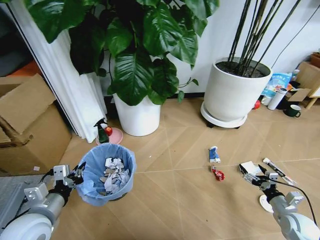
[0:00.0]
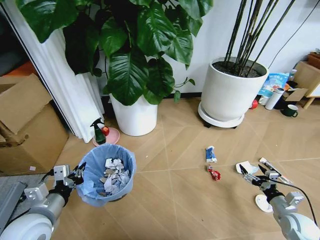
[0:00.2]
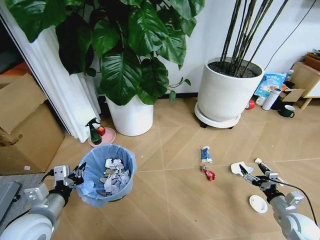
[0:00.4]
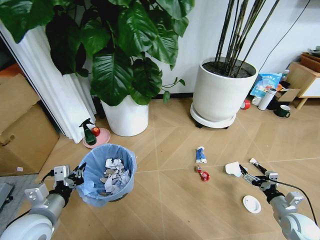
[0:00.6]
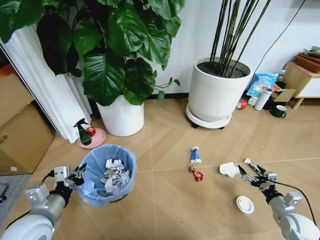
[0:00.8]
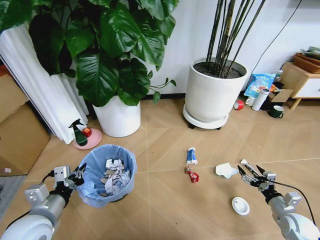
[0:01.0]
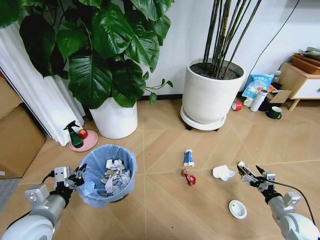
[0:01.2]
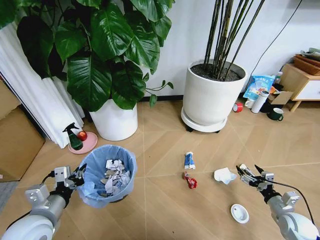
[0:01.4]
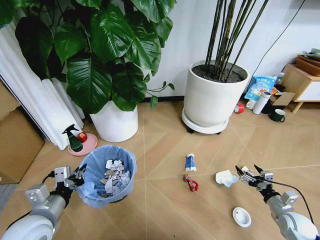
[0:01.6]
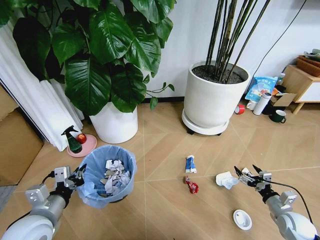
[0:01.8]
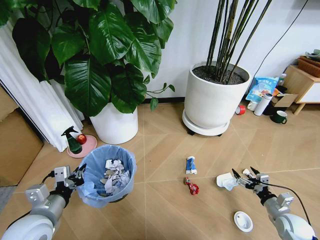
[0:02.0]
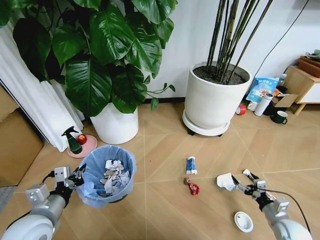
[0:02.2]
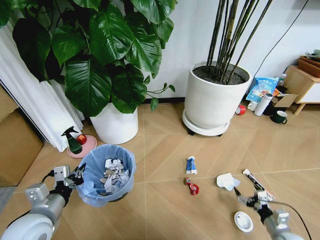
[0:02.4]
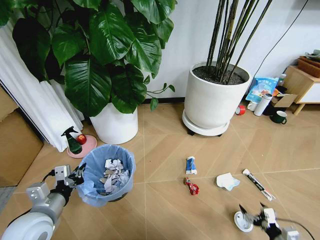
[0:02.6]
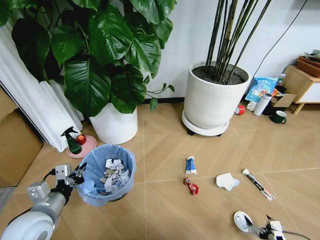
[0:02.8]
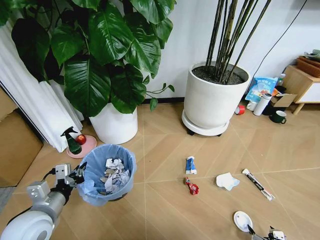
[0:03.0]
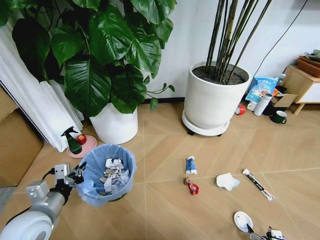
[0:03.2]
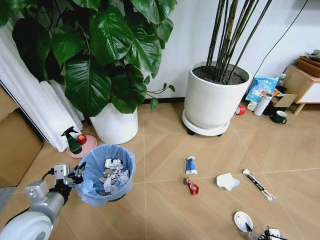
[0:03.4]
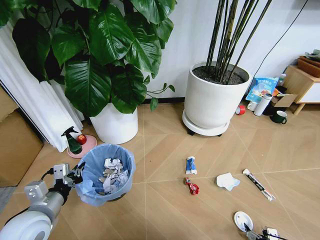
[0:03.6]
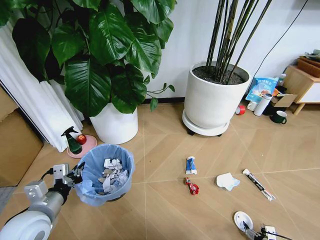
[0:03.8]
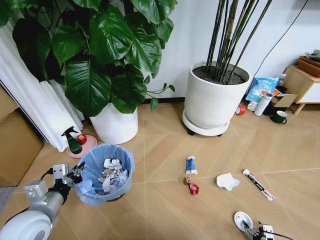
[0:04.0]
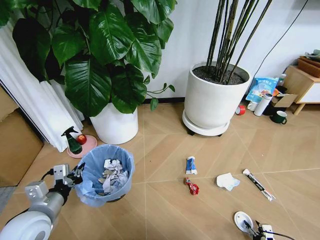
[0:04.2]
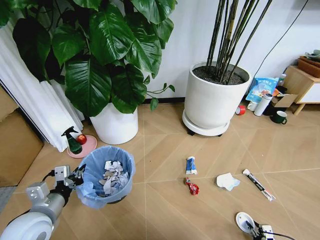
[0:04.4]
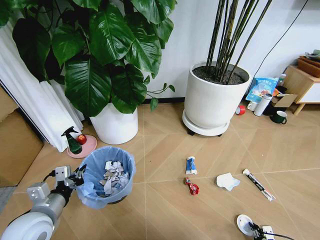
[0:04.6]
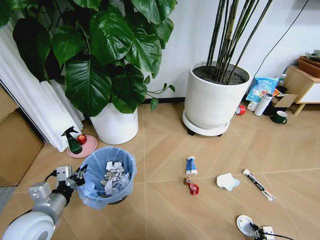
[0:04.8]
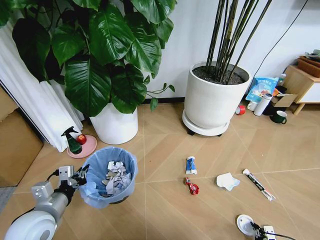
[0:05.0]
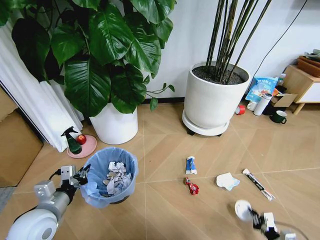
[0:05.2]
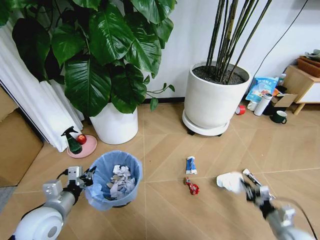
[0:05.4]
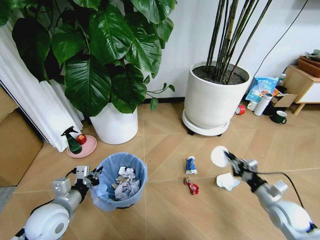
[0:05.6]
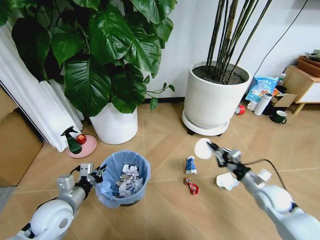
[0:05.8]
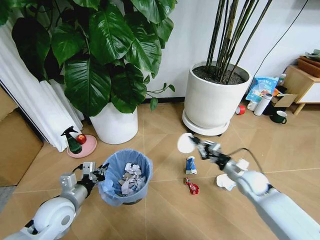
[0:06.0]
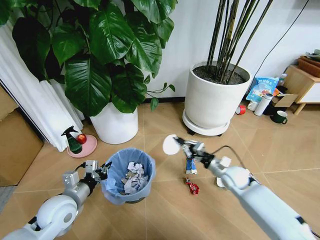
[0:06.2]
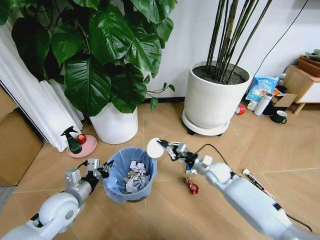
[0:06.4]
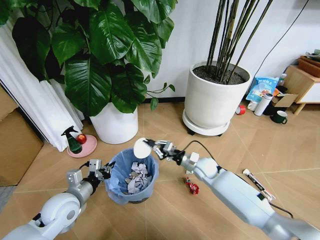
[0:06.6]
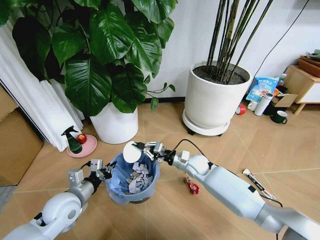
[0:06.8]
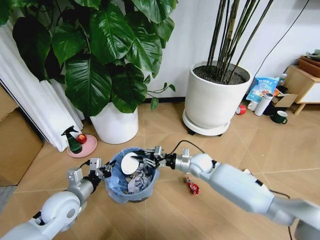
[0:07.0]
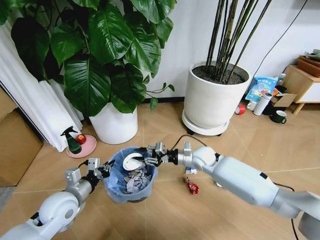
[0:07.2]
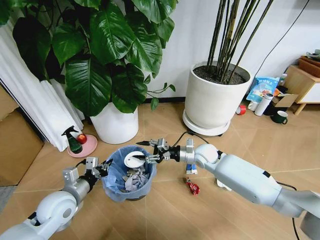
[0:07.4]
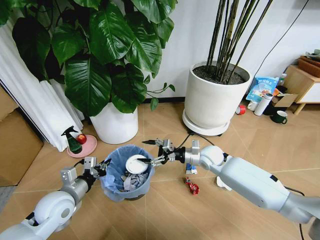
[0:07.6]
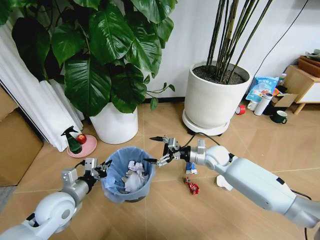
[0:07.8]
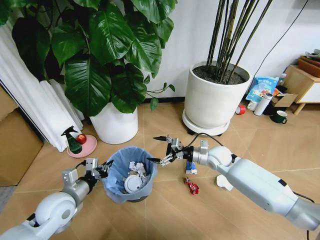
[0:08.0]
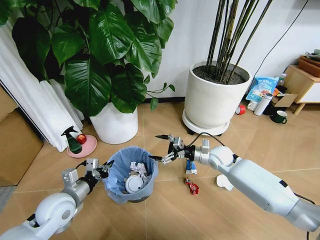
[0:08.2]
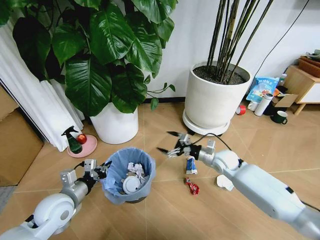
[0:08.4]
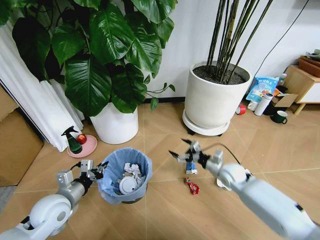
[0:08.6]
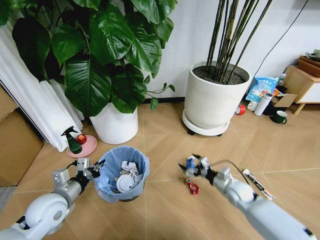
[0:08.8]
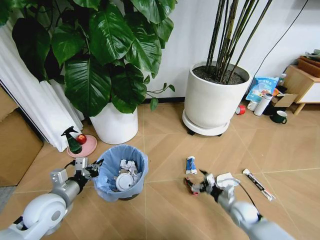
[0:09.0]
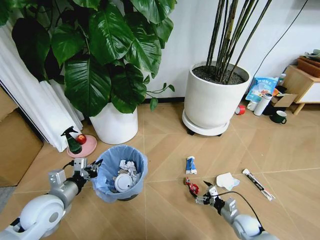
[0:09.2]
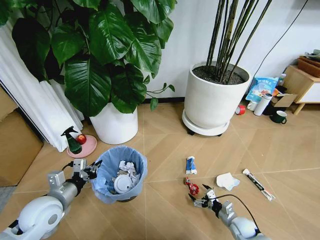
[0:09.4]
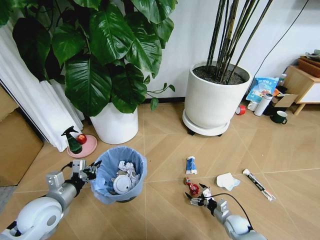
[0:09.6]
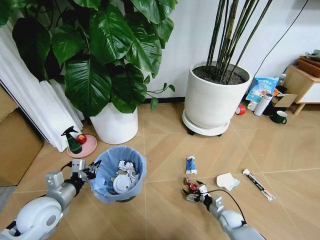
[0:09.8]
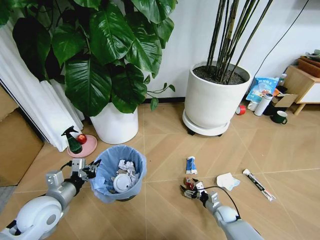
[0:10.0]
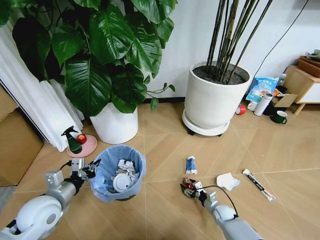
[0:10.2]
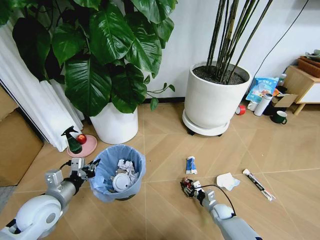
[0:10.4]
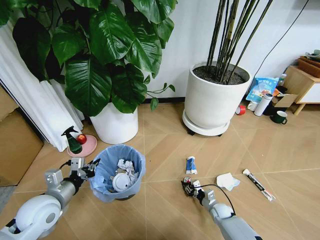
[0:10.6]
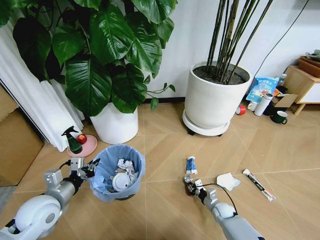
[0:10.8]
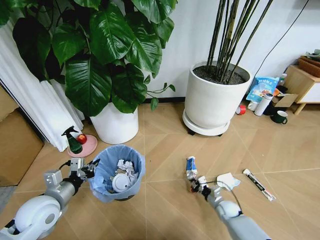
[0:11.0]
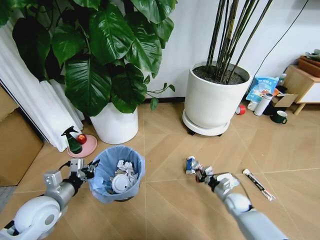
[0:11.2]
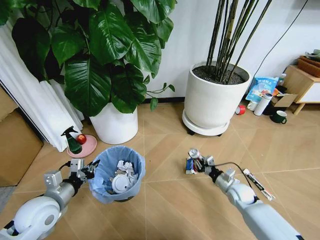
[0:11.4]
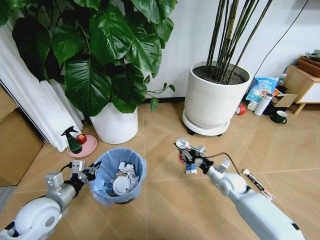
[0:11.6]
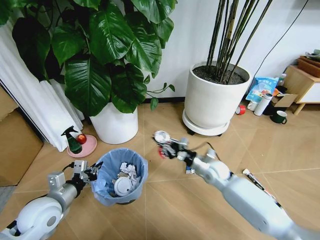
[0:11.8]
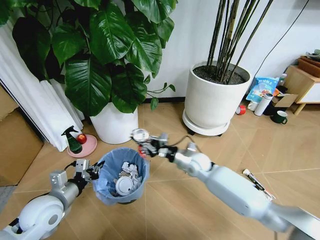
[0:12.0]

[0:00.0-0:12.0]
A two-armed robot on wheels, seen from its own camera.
Task of the whole recording: Pick up the trash bin and place the garbage on the floor into it.
0:01.6 to 0:03.0: The right gripper travels backward by some 20 cm.
0:03.0 to 0:04.4: The right gripper travels downward by some 5 cm, and closes.
0:04.4 to 0:06.0: The right gripper moves forward, upward and to the left, some 35 cm, while the left gripper shifts about 5 cm forward.
0:06.0 to 0:07.6: The right gripper heads to the left and forward, covering roughly 15 cm, and opens up.
0:07.6 to 0:09.0: The right gripper goes some 30 cm downward, backward and to the right.
0:09.0 to 0:10.4: The right gripper is displaced downward by about 10 cm, and closes its fingers.
0:10.4 to 0:12.0: The right gripper travels upward, to the left and forward by some 30 cm, and closes.

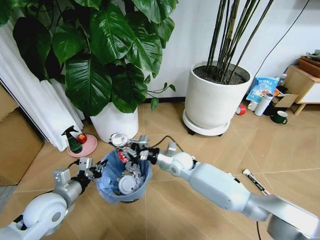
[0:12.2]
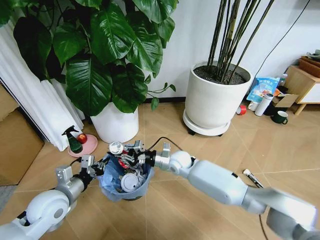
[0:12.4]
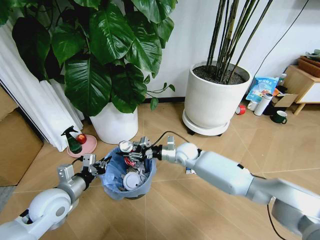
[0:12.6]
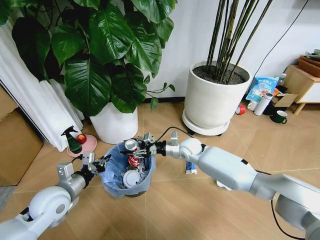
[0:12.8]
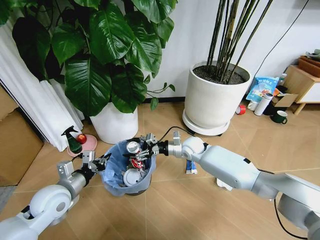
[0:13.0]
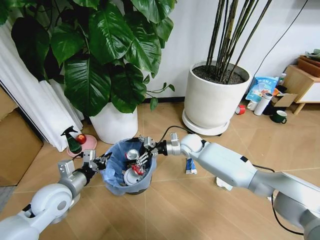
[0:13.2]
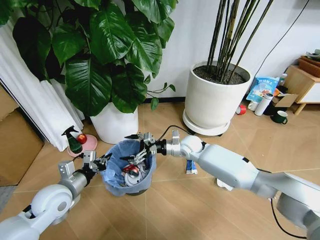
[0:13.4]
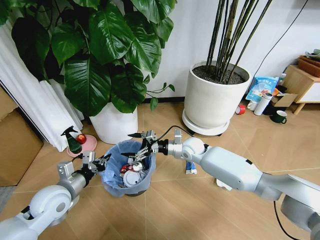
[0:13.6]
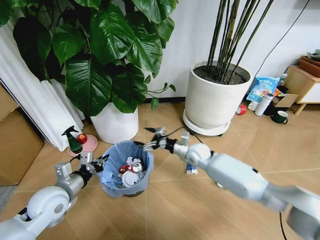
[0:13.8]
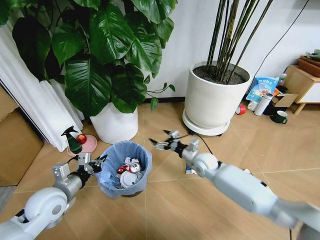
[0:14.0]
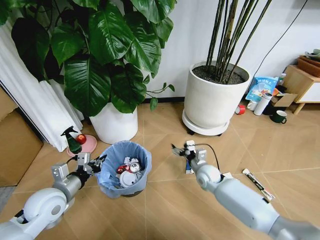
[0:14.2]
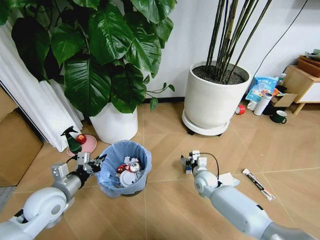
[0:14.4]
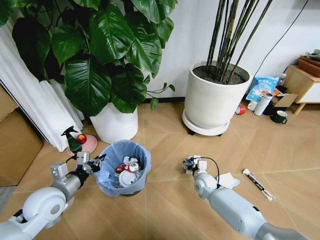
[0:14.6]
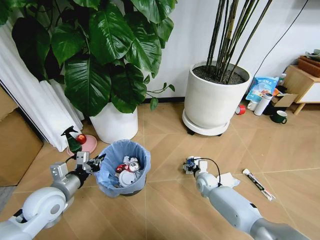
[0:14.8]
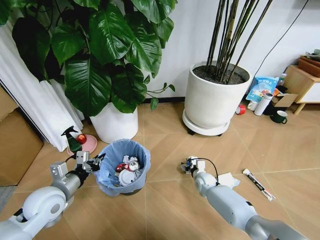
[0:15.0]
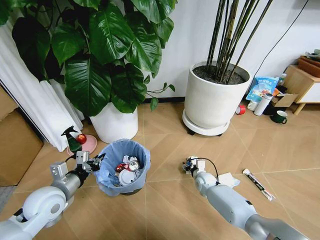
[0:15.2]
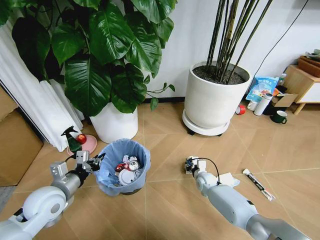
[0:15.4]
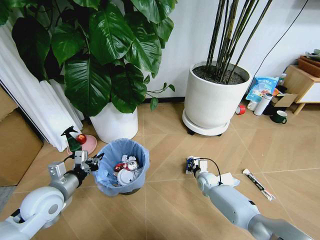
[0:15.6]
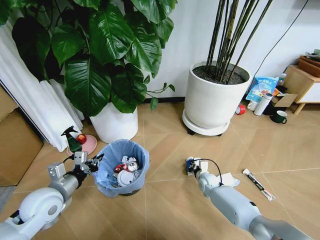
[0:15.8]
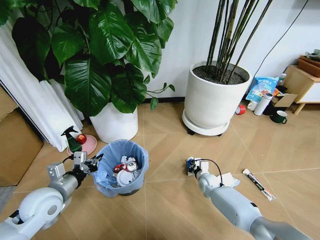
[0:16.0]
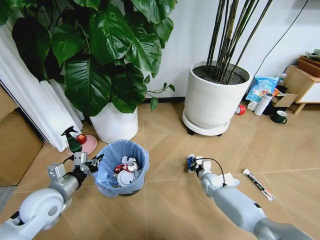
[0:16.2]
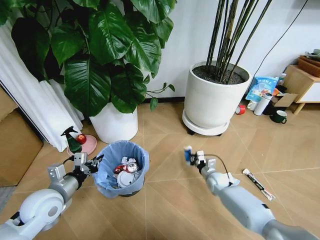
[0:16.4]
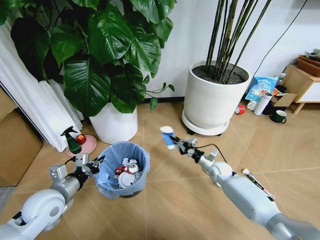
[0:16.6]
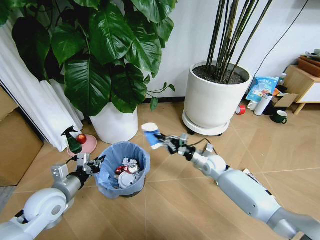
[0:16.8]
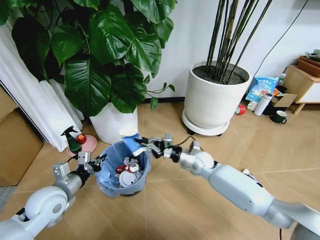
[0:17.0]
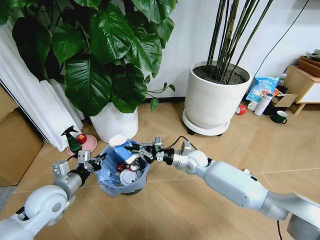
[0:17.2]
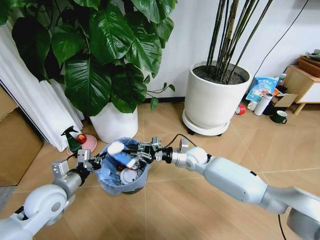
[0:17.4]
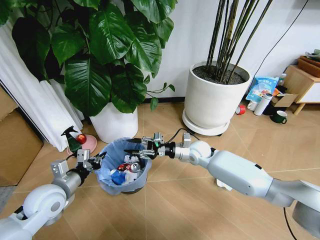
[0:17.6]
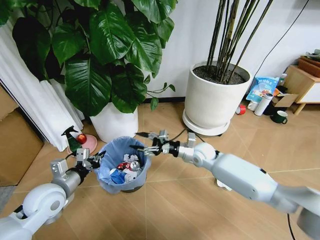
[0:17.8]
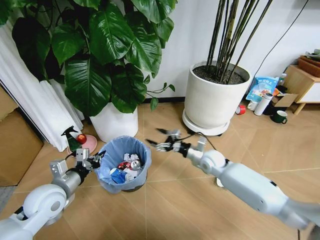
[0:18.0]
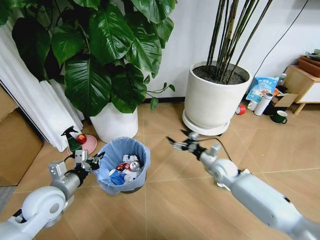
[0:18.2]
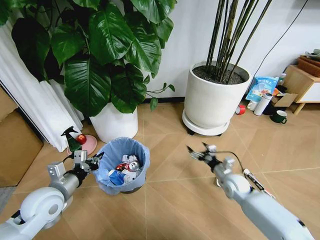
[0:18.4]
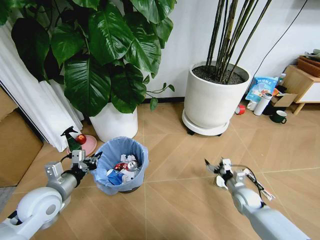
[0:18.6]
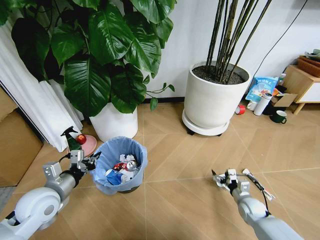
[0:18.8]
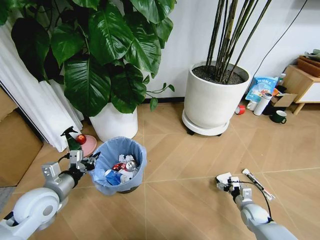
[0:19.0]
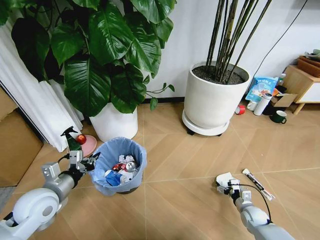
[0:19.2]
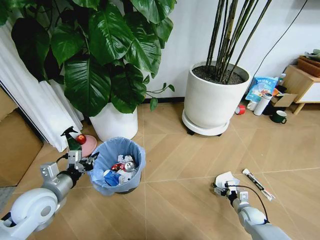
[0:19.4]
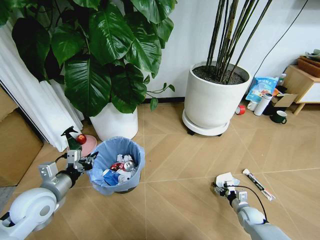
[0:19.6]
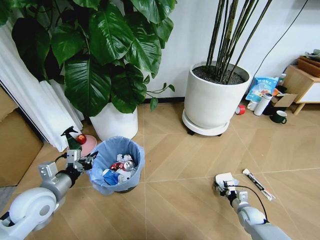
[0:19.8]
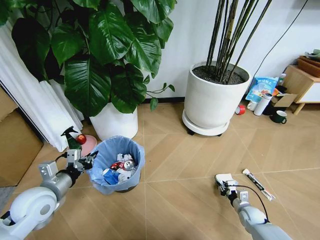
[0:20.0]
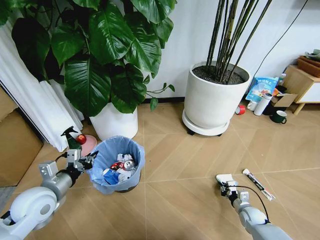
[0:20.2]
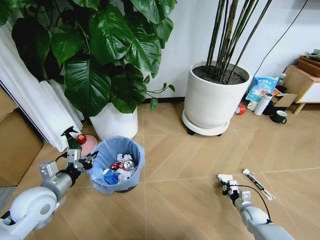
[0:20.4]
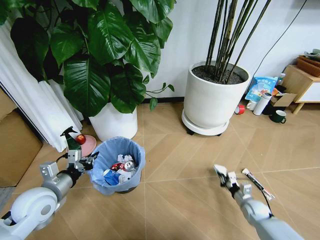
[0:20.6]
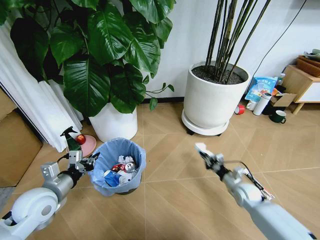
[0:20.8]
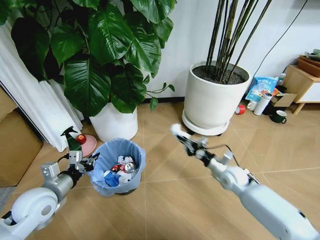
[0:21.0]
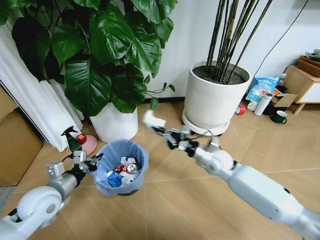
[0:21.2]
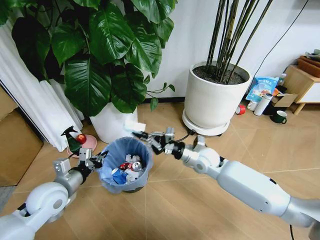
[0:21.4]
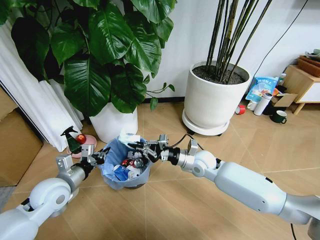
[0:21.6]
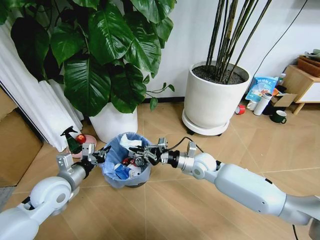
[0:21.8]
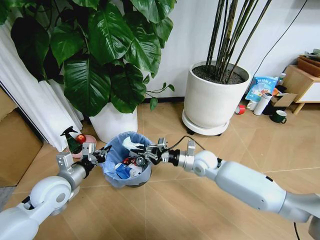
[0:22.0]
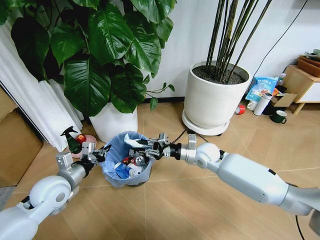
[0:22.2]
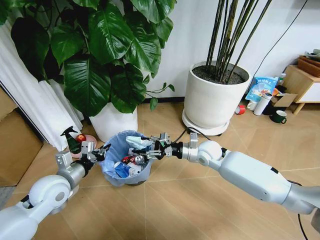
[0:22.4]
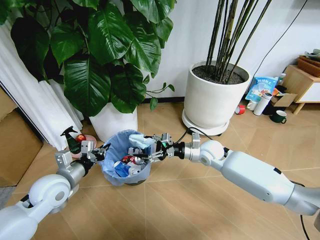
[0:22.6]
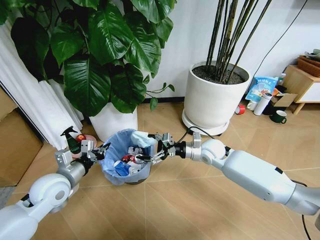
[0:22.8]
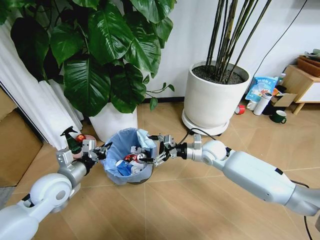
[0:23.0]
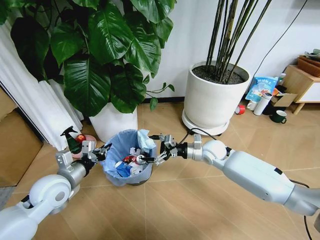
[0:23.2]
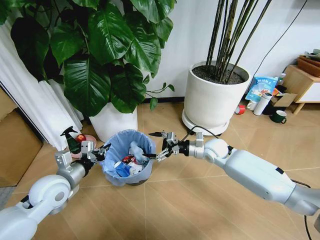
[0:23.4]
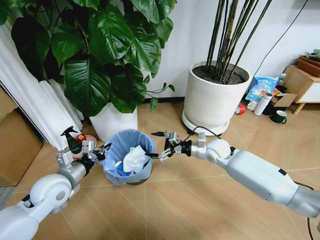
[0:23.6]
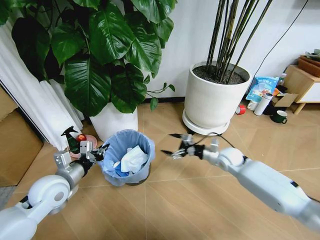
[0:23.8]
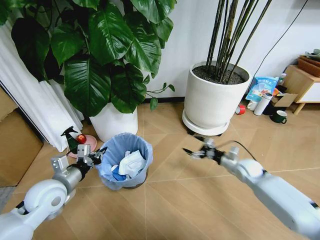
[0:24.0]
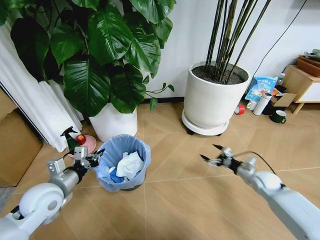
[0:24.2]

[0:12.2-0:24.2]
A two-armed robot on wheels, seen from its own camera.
Task of the whole recording: Pick up the trash bin and place the garbage on the floor into it.
0:12.2 to 0:13.8: The right gripper travels to the right by roughly 5 cm, and opens.
0:13.8 to 0:15.2: The right gripper moves downward, approximately 20 cm, and closes.
0:15.2 to 0:16.6: The right gripper is displaced upward and to the right by some 10 cm, and closes.
0:16.6 to 0:18.2: The right gripper heads upward, covering approximately 5 cm, travels to the left and back again, about 15 cm each way, and opens its fingers.
0:18.2 to 0:19.8: The right gripper heads downward, backward and to the right, covering some 25 cm, and closes up.
0:19.8 to 0:21.2: The right gripper shifts approximately 35 cm upward, to the left and forward, and closes its fingers.
0:21.2 to 0:22.6: The right gripper opens its fingers.
0:22.6 to 0:24.2: The right gripper is displaced to the right and downward by approximately 25 cm.
